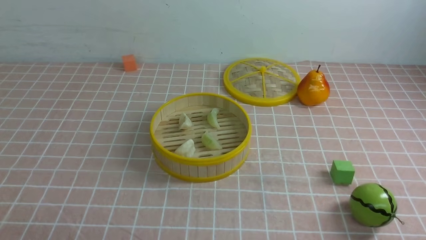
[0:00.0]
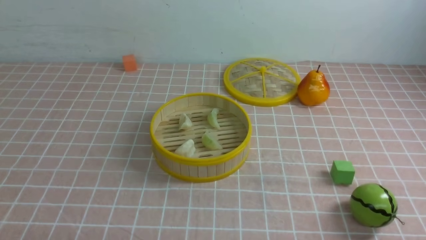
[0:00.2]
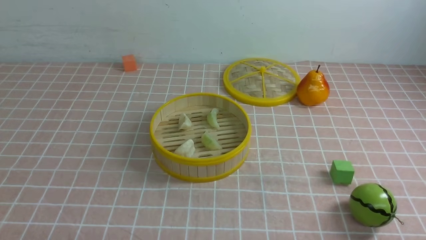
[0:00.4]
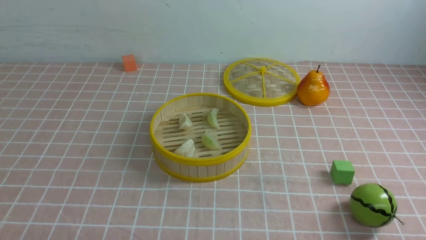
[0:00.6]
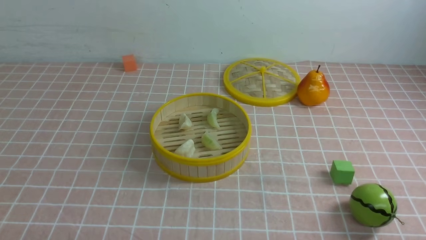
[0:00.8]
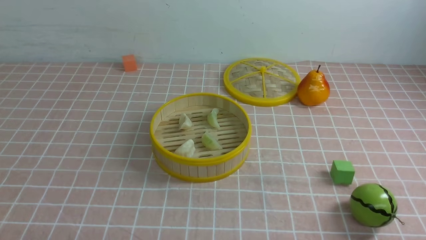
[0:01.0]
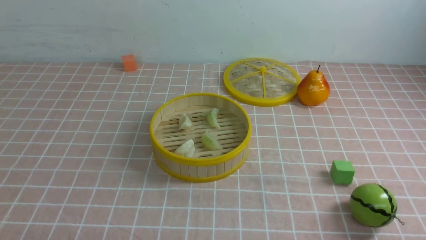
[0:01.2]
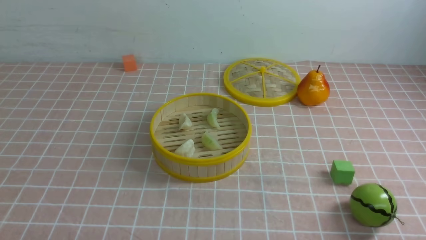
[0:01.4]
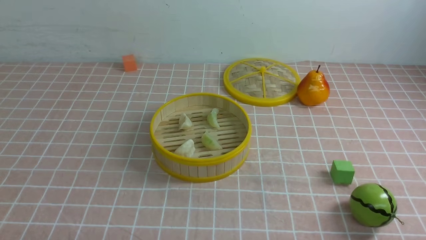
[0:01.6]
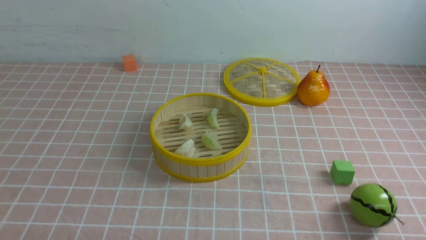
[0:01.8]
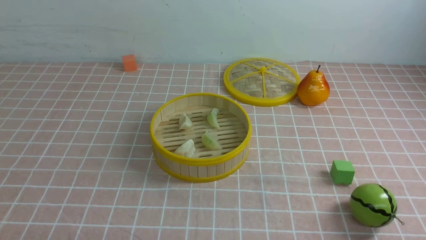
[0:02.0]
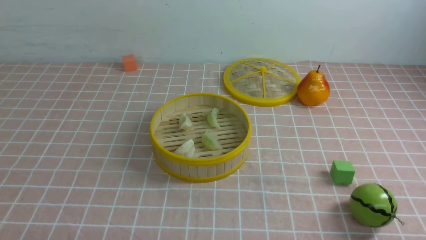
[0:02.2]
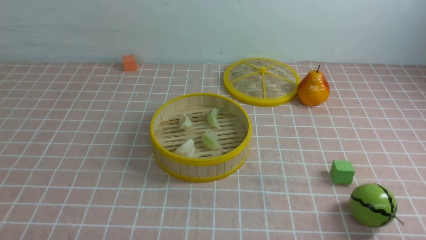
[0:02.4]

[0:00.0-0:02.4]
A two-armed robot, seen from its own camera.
Task of the whole recording: put the dumplings into the steamer on the table with the pink tablecloth.
0:01.2 to 0:02.4: Both grippers stay about where they are.

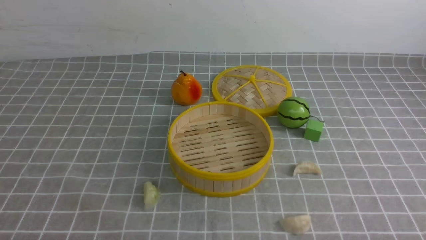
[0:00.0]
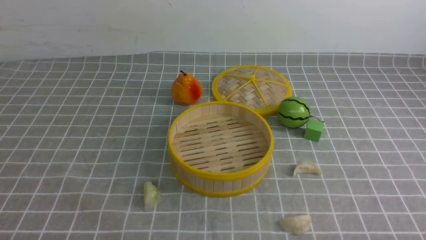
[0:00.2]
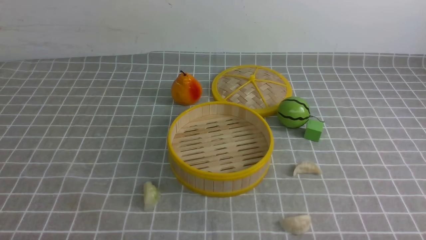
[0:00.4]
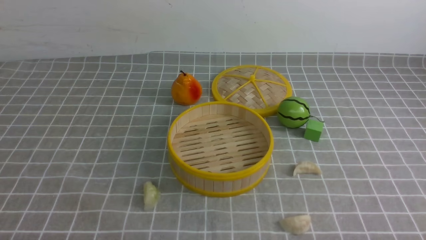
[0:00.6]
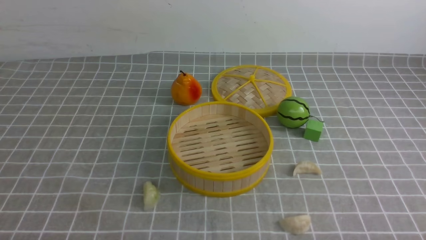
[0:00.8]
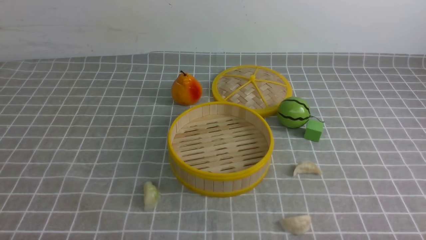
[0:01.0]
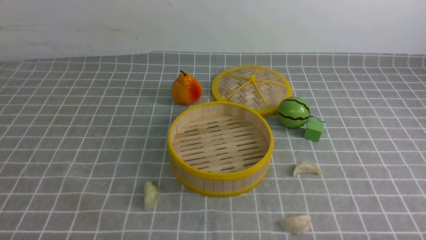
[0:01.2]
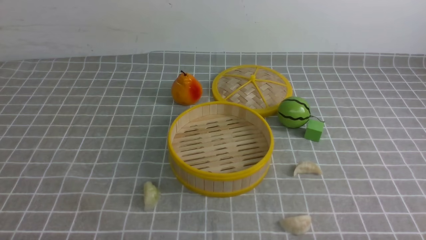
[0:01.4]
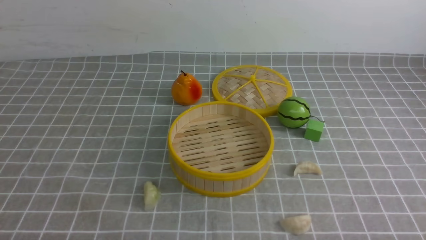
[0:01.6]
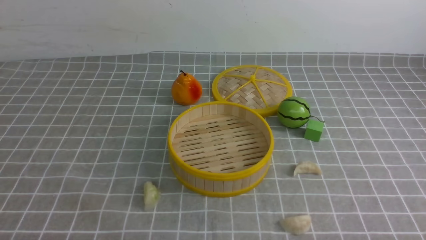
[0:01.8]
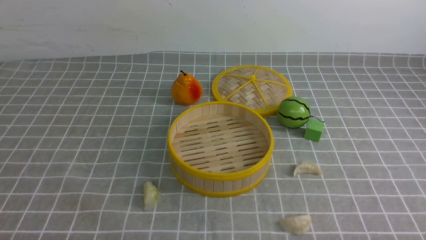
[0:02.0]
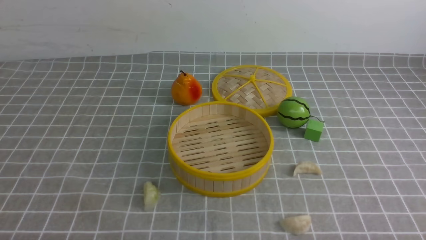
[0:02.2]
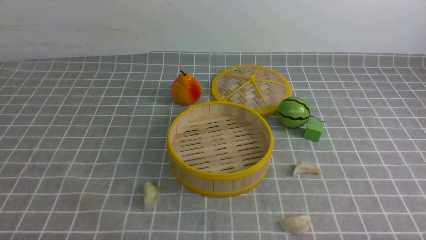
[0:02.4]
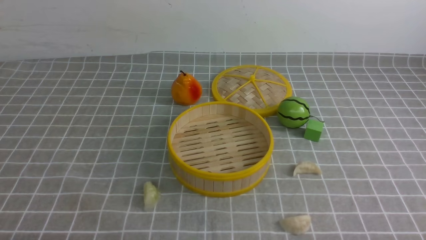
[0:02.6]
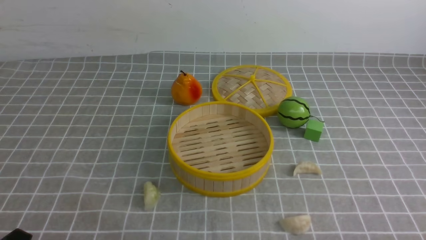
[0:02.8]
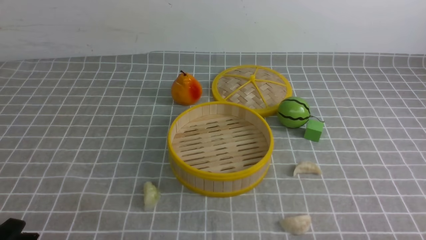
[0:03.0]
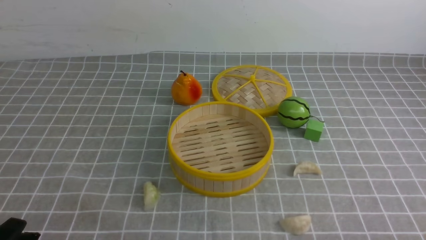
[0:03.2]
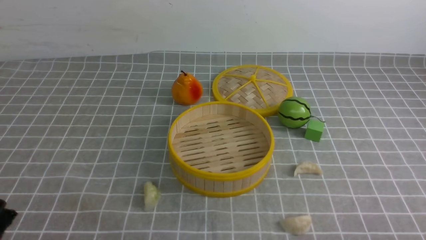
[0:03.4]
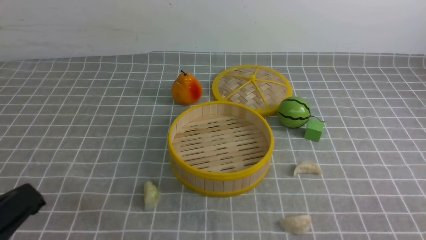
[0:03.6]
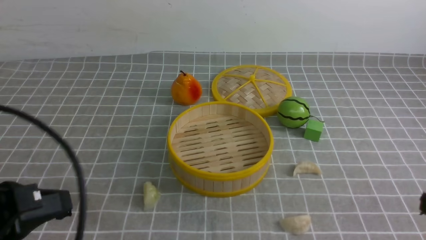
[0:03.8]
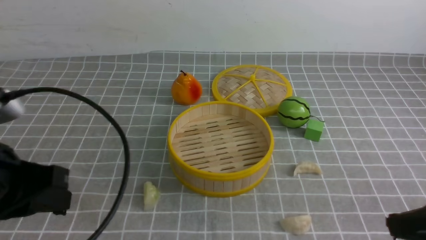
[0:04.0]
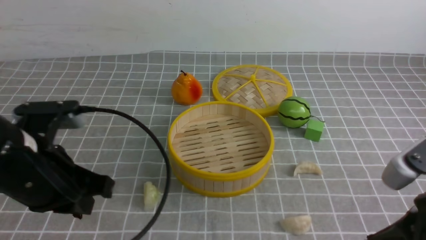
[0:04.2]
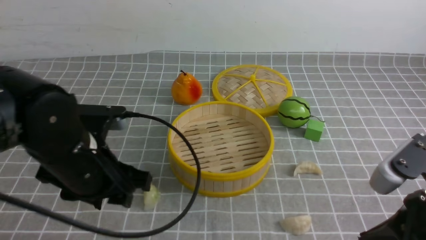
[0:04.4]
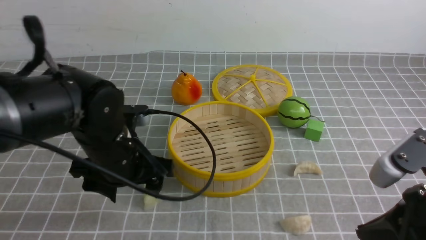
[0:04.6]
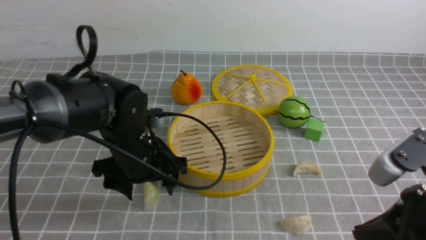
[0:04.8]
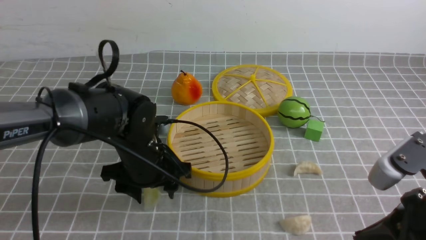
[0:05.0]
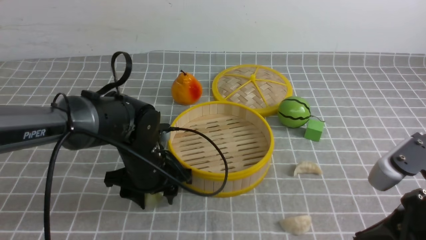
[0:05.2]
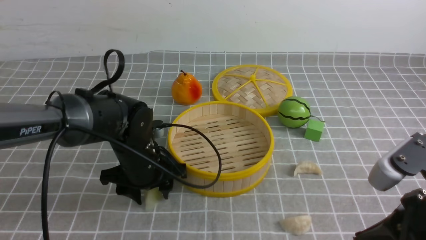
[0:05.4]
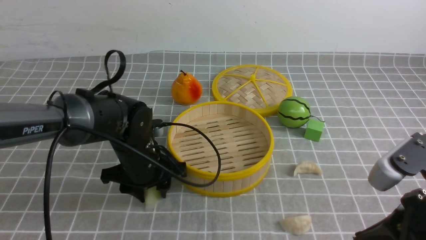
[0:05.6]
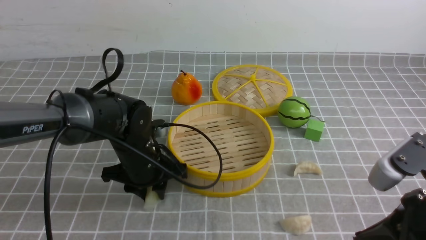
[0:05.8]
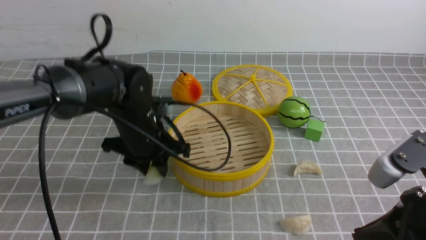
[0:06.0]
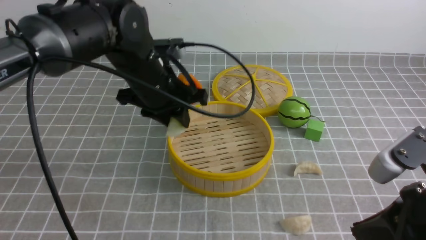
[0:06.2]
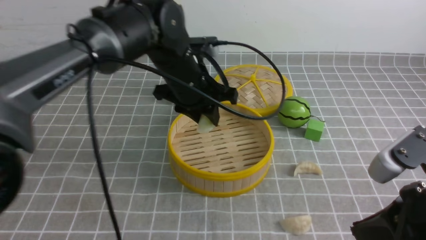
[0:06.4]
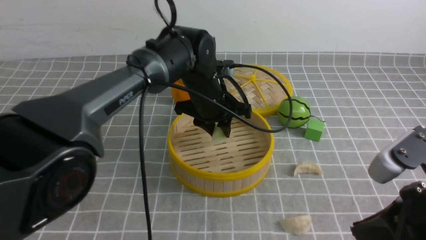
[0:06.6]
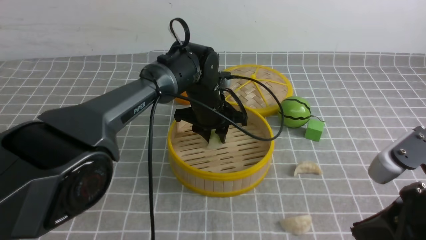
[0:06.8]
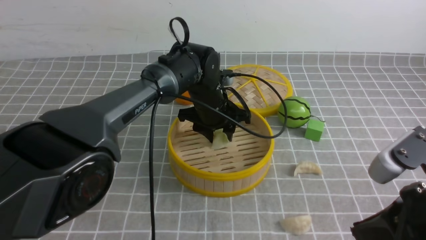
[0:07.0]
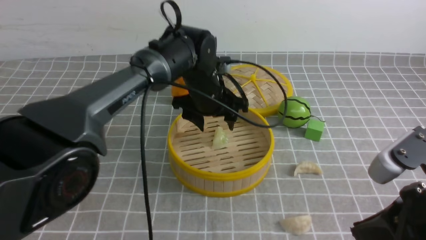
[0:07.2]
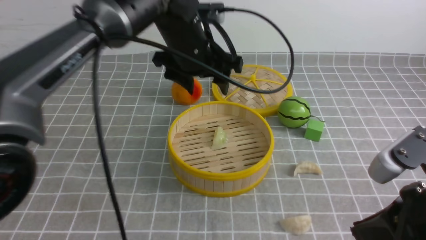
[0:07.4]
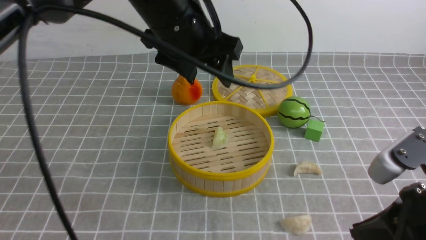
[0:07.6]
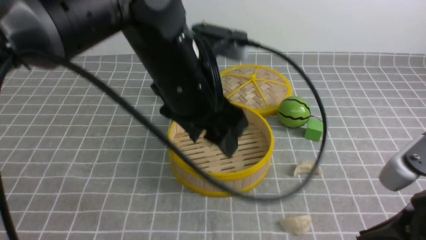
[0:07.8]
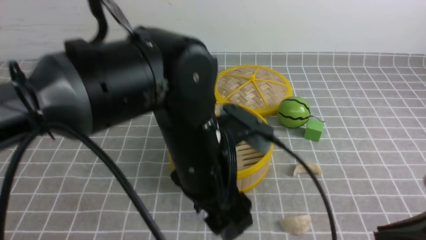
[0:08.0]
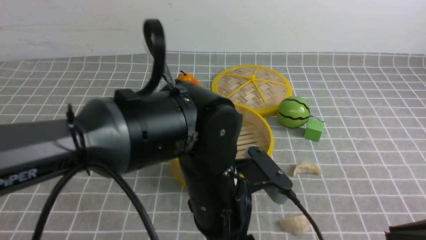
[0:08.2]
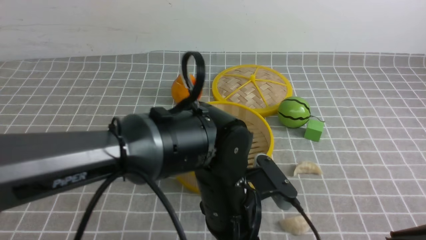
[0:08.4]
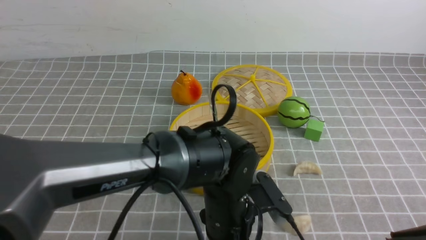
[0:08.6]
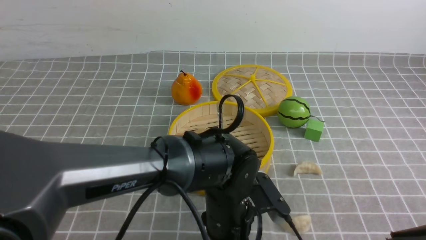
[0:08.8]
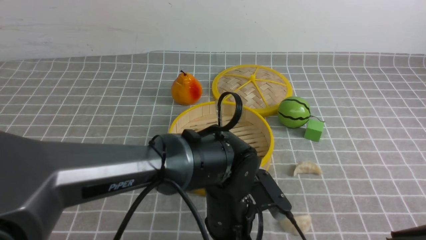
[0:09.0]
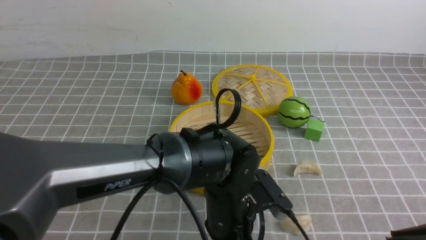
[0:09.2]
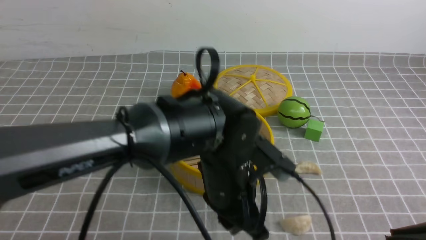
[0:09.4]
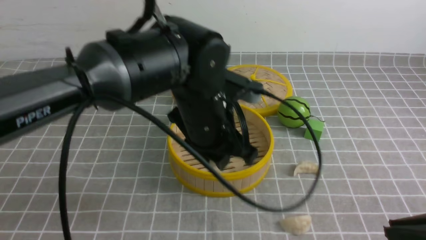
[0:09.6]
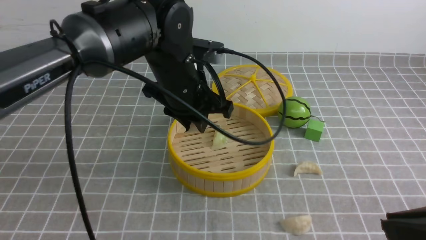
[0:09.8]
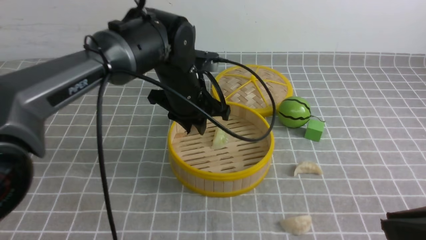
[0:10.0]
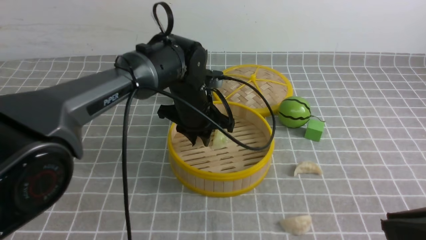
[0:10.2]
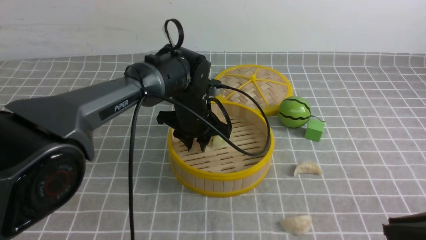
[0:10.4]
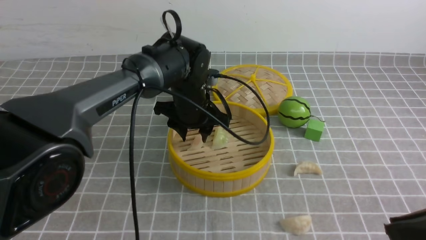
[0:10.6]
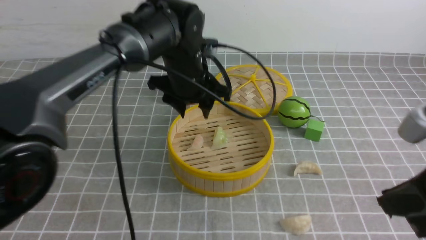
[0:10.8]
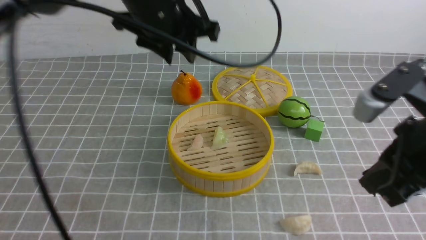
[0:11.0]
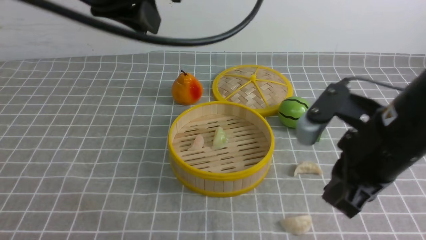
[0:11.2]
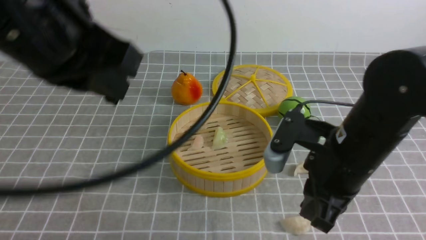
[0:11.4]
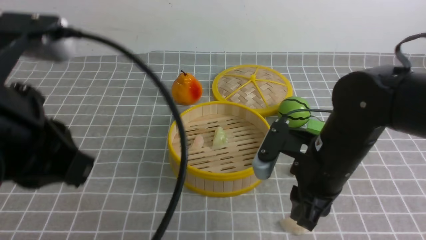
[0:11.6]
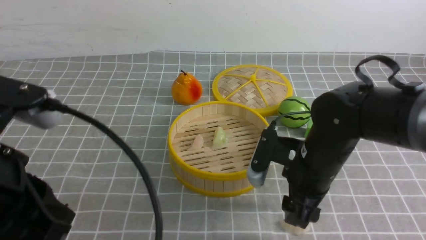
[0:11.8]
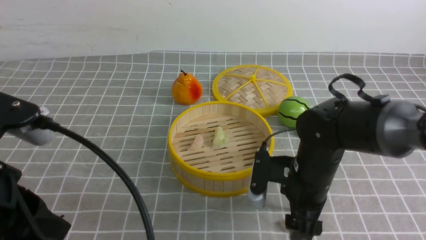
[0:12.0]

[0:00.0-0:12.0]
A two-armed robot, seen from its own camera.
Task of the whole recording: put the dumplings into the steamer on the table with the grey tablecloth.
Step, 0:00.0 to 0:05.8: use the left arm to grab a dumpling.
Step, 0:06.0 to 0:07.2: use the left arm to put the dumpling into the steamer.
Step, 0:07.4 to 0:08.8: use the left arm to grab a dumpling.
Step, 0:09.0 to 0:10.8: use the left arm to put the dumpling into the steamer.
0:03.0 to 0:04.4: The left gripper travels forward, upward and to the right by some 20 cm, and closes, then opens again, while the right gripper travels upward, forward and to the left by approximately 15 cm, and closes up.
0:04.4 to 0:06.0: The left gripper is displaced forward, downward and to the right by about 15 cm, and opens, then closes again.
0:06.0 to 0:07.6: The left gripper goes up and down, about 15 cm each way, reversing 2 times, and opens its fingers.
0:07.6 to 0:09.0: The right gripper goes some 5 cm backward. The left gripper heads downward and backward, covering approximately 25 cm, and closes its fingers.
0:09.0 to 0:10.4: The left gripper heads forward, covering roughly 15 cm.
0:10.4 to 0:12.0: The left gripper shifts roughly 35 cm backward, to the left and upward, and closes its fingers; the right gripper is displaced forward, downward and to the left by some 25 cm, and opens.

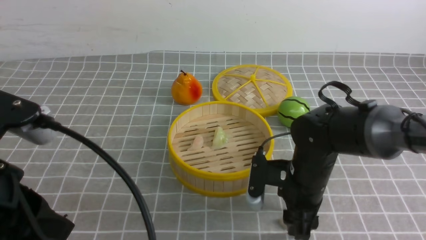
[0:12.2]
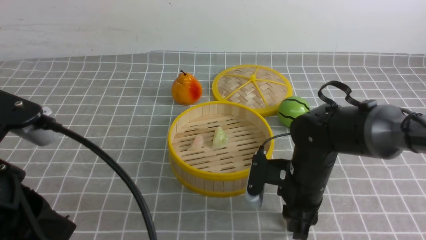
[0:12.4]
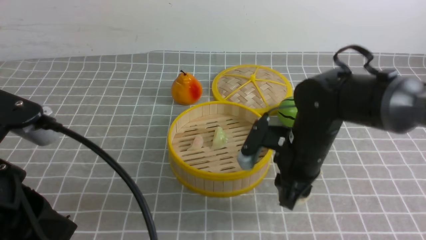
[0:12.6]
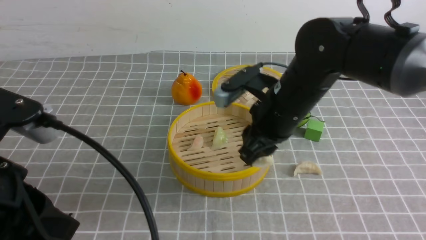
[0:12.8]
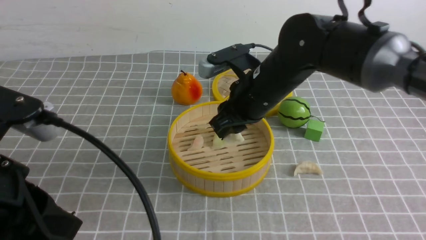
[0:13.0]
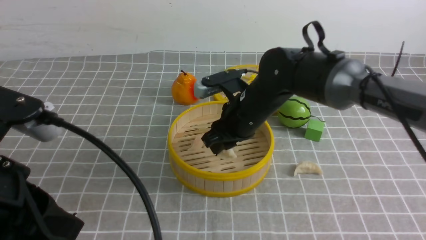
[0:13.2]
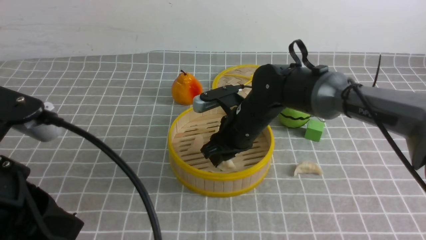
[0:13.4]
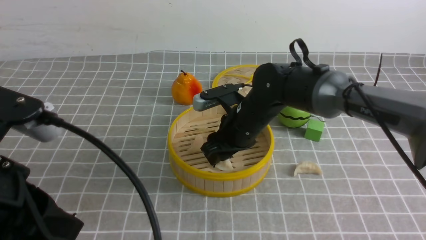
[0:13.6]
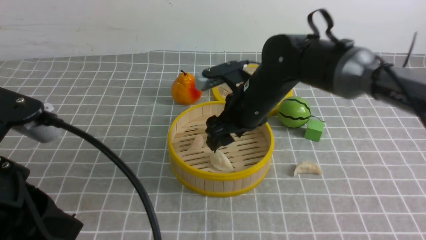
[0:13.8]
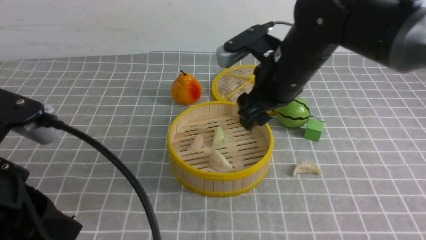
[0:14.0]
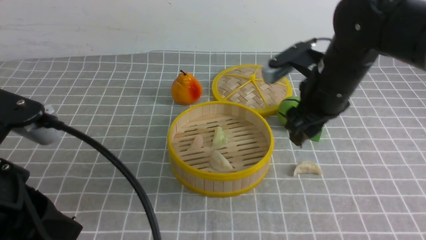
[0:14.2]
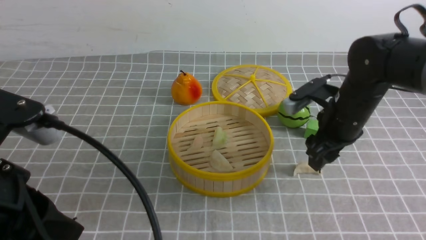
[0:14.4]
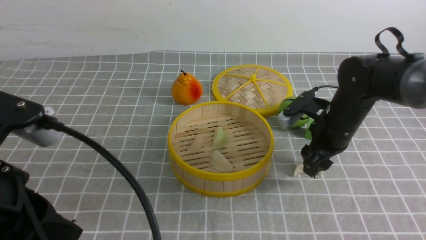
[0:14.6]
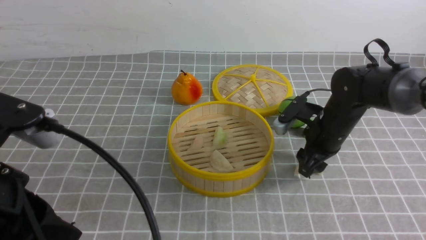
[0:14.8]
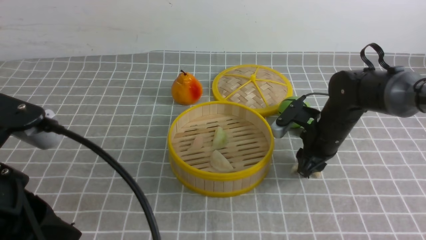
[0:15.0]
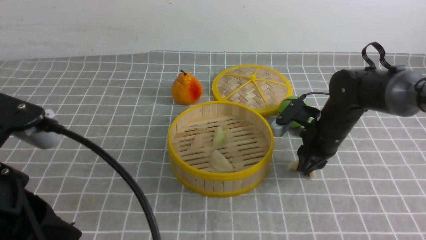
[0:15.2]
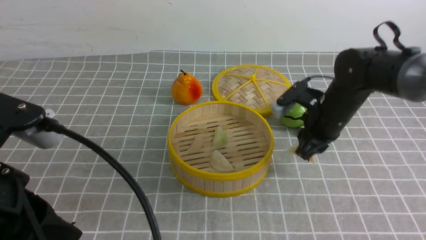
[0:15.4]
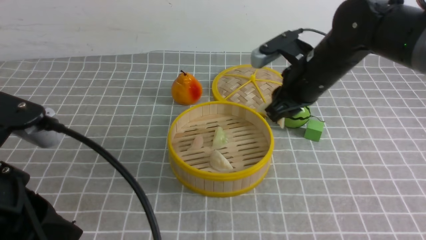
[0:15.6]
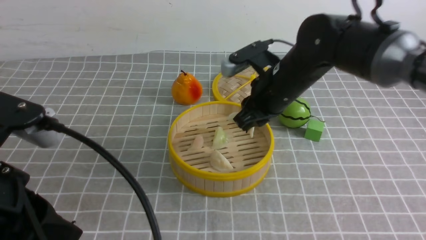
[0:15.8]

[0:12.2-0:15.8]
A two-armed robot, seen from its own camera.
Task of the whole recording: put the dumplings into the steamer on the table with the grey tablecloth.
Step, 0:12.8 to 0:13.8: use the right arm to put the dumpling into the steamer.
Step, 0:14.2 to 0:15.2: use the right arm to grab a dumpling.
0:12.2 to 0:14.0: The right gripper swings up and down, about 10 cm each way, with 2 reversals, and closes, then opens again.
0:14.0 to 0:15.8: The right gripper goes downward and returns, approximately 10 cm each way, and closes up.
